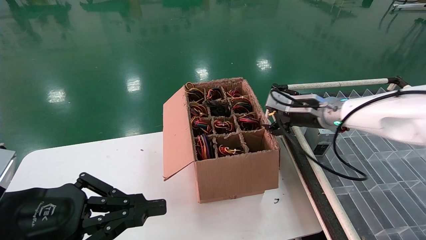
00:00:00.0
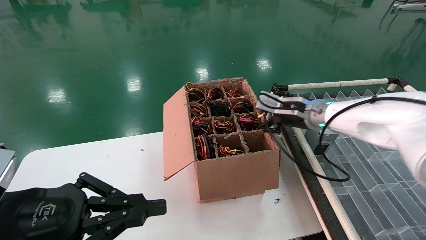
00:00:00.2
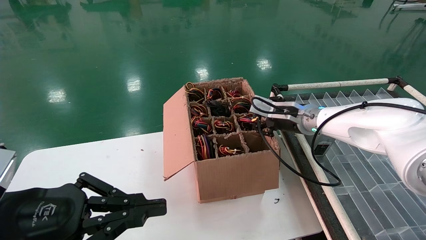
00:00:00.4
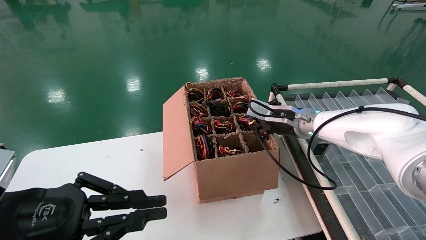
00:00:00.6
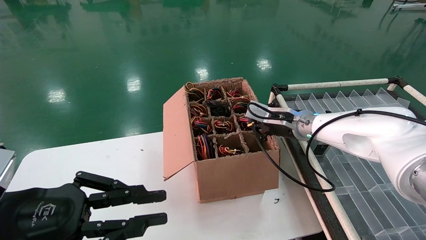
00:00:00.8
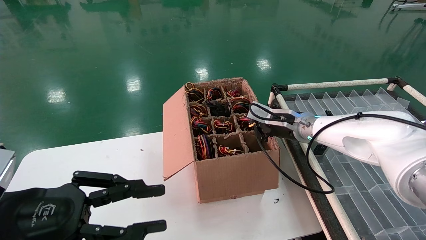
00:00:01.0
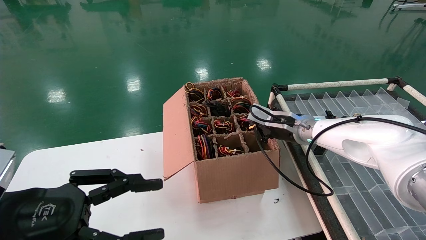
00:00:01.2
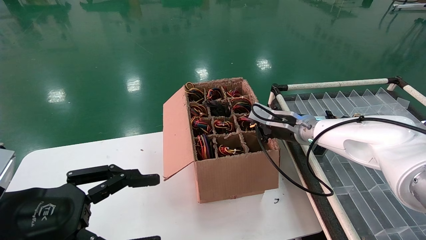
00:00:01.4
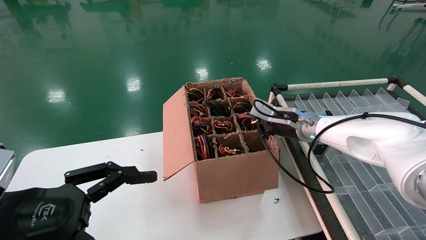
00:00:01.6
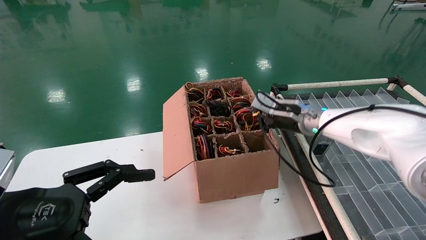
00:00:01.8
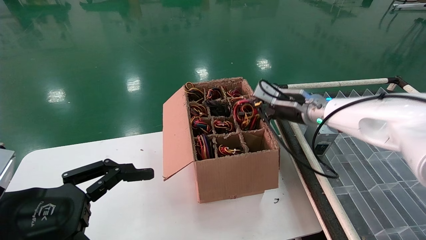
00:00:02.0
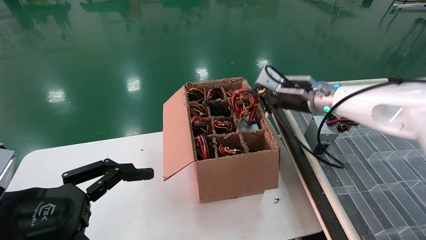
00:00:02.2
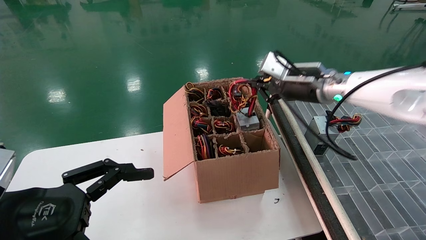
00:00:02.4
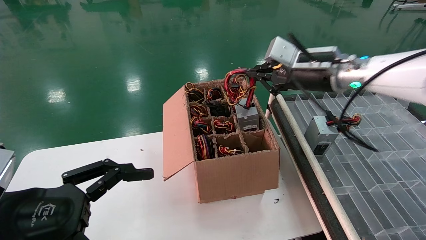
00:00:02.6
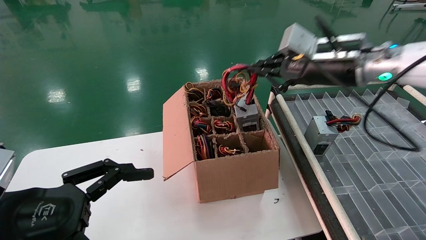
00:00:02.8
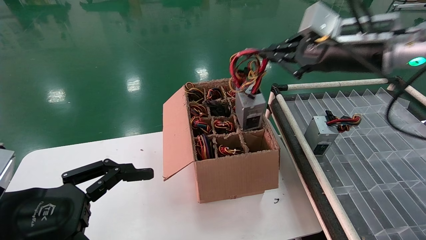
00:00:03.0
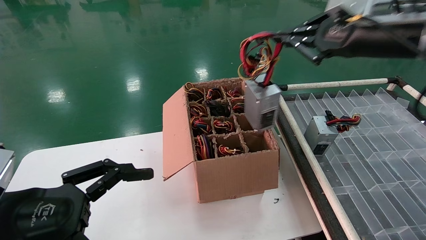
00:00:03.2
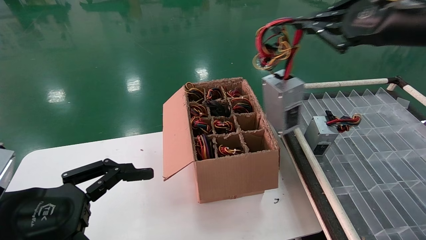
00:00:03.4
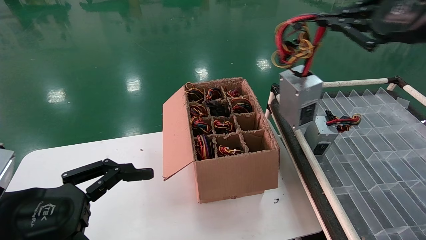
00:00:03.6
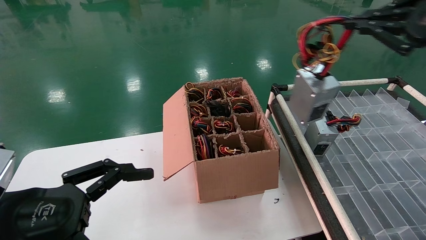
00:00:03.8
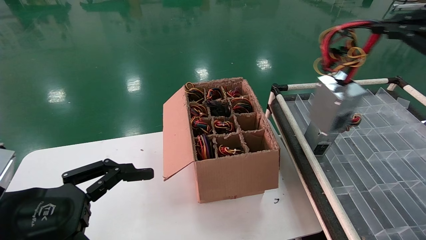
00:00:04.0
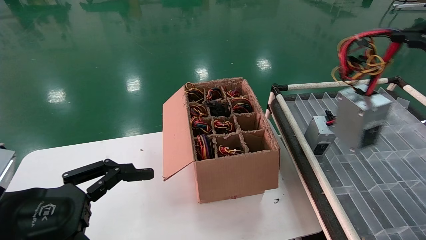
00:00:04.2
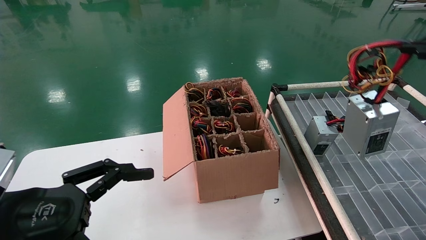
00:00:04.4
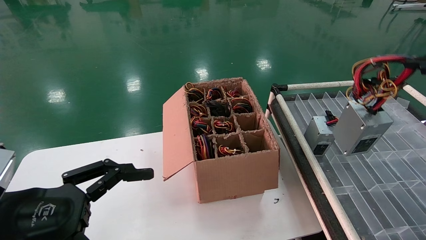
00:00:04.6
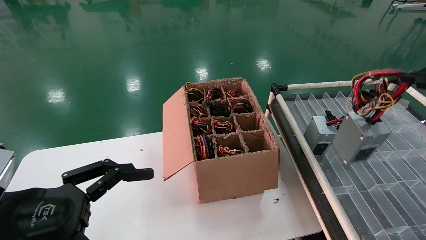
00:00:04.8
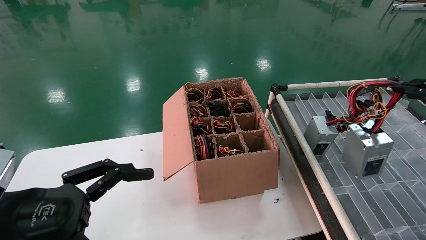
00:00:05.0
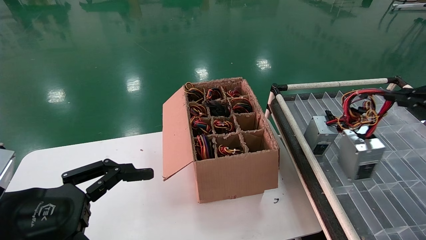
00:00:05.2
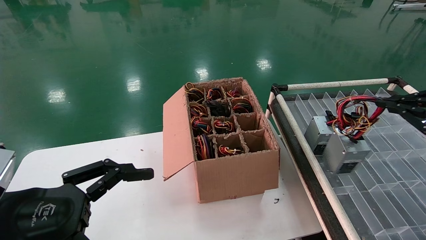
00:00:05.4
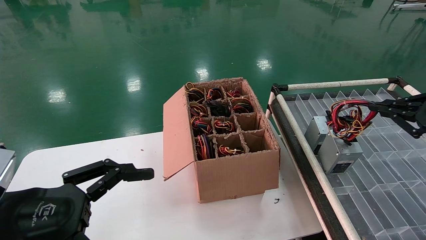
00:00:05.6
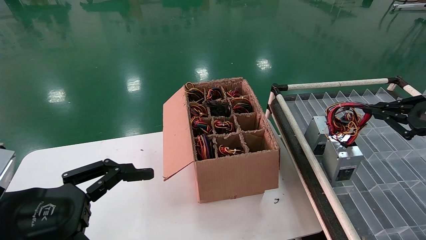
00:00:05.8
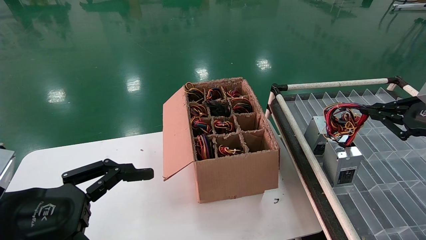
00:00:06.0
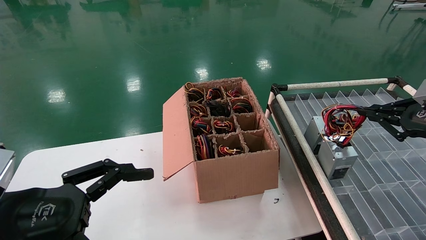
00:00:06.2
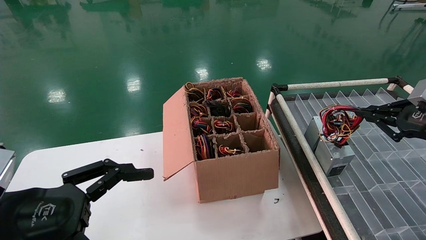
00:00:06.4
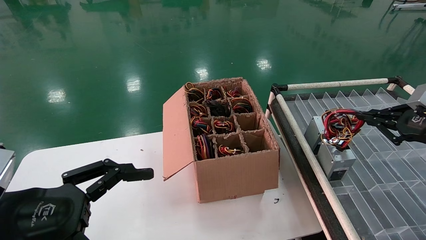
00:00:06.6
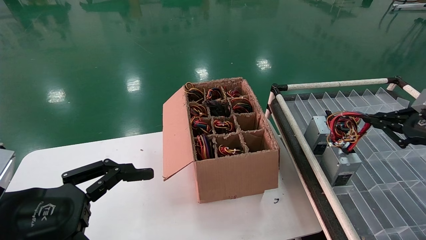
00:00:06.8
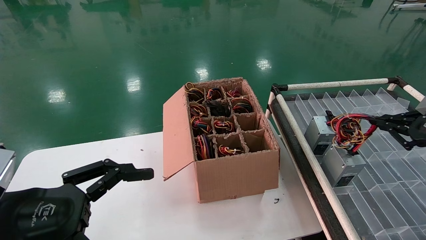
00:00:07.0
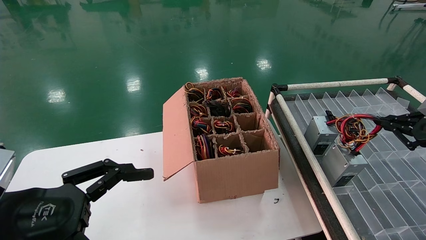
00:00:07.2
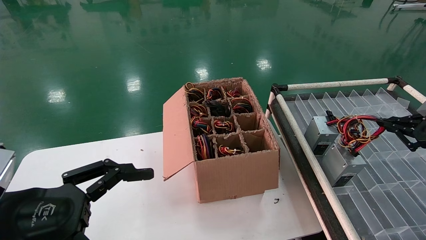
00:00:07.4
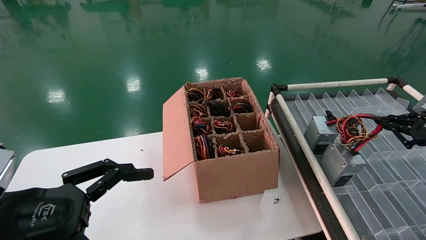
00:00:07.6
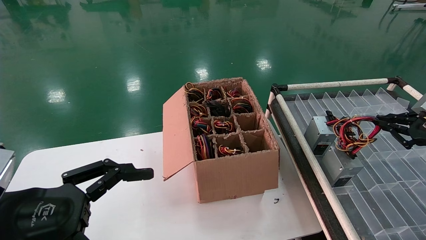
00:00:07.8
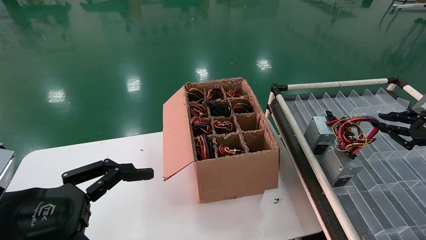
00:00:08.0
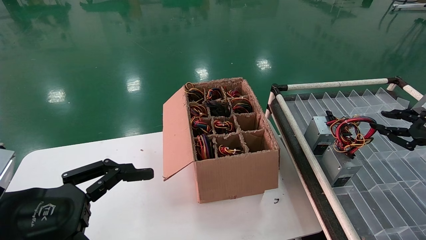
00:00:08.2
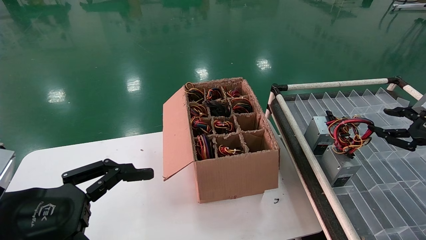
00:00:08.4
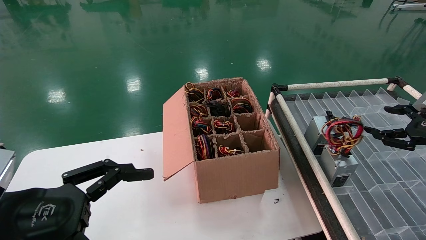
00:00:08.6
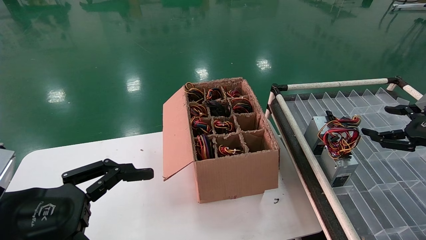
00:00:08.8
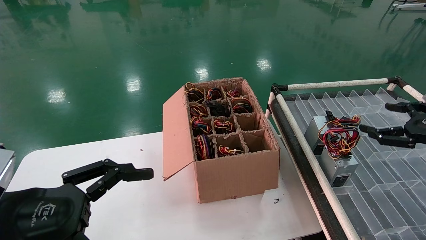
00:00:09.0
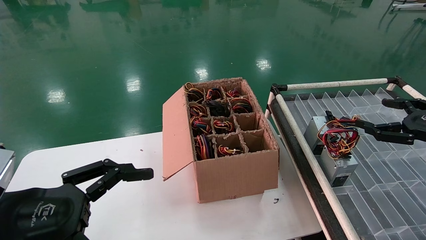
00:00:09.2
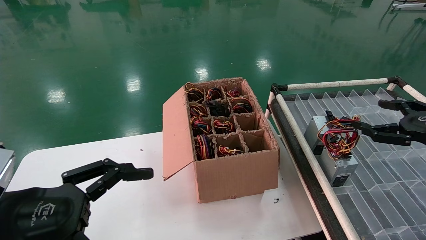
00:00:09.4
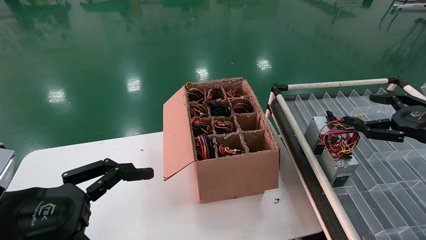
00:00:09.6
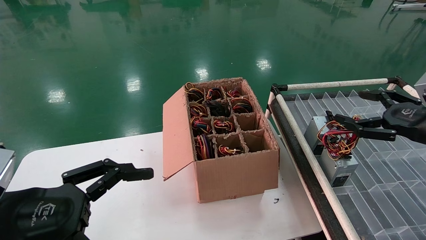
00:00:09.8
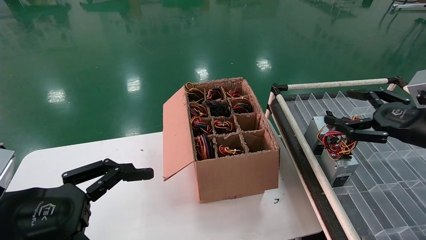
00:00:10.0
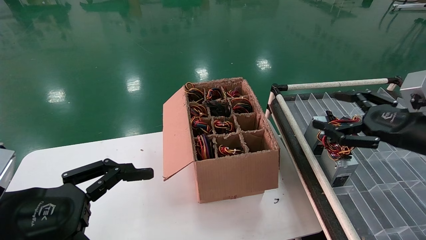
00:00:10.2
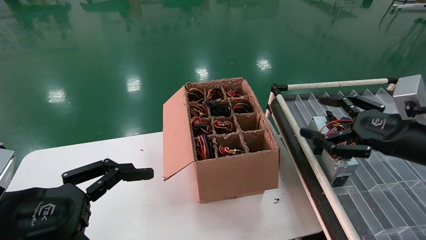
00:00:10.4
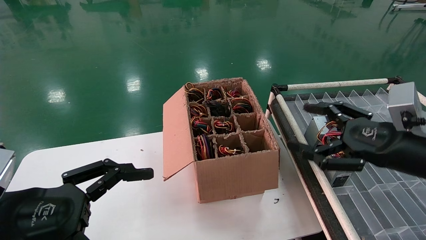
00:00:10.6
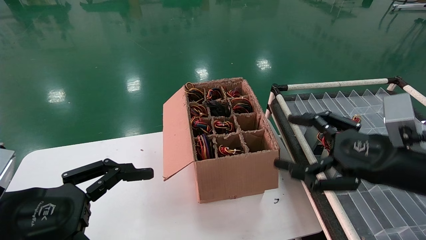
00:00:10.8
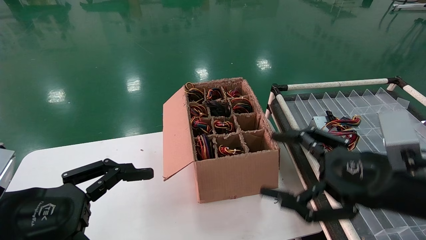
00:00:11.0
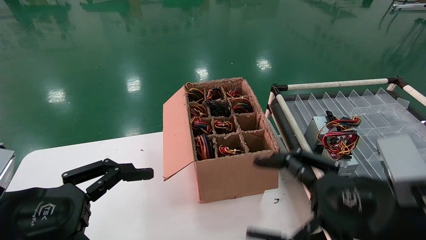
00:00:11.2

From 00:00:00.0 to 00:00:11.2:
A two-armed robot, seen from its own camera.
Step, from 00:00:01.6 to 00:00:08.2: Place the power supply on the operating table.
From 00:00:00.0 to 00:00:01.6: The left gripper opens, while the right gripper closes up.
From 00:00:01.6 to 00:00:03.2: The right gripper travels upward, backward and to the right by roughly 25 cm.
From 00:00:03.2 to 00:00:04.8: The right gripper is displaced to the right, backward and downward by about 25 cm.
From 00:00:04.8 to 00:00:06.4: The right gripper goes roughly 10 cm forward and downward.
From 00:00:06.4 to 00:00:08.0: The grippers move only a little.
From 00:00:08.0 to 00:00:09.6: The right gripper changes place by approximately 5 cm, and opens its fingers.
From 00:00:09.6 to 00:00:11.2: The right gripper moves to the left and backward, approximately 20 cm.
